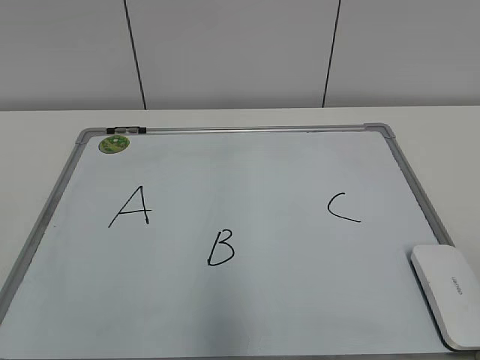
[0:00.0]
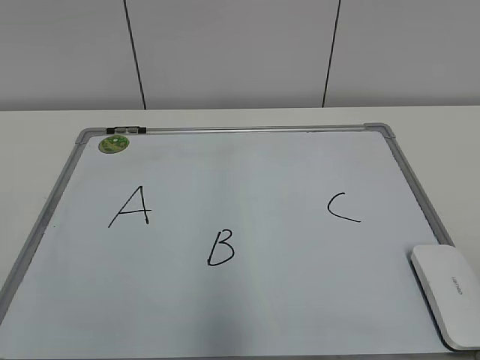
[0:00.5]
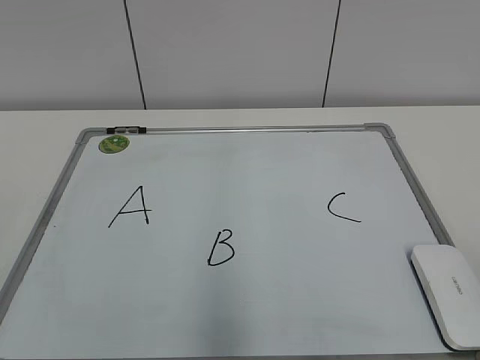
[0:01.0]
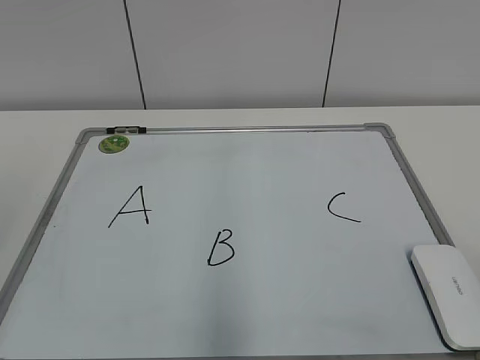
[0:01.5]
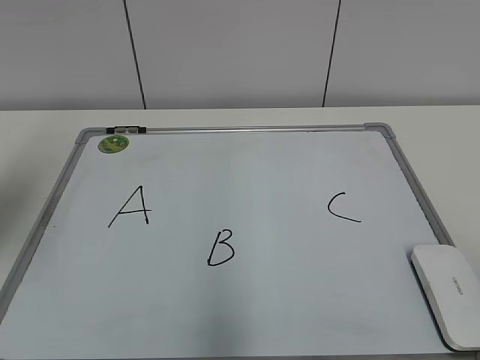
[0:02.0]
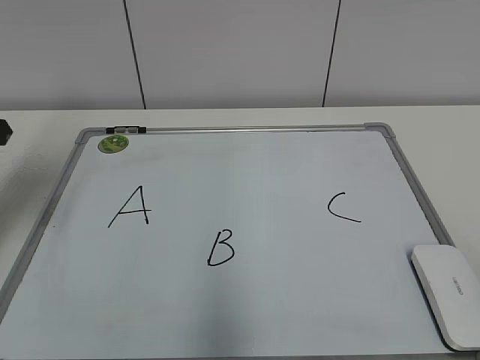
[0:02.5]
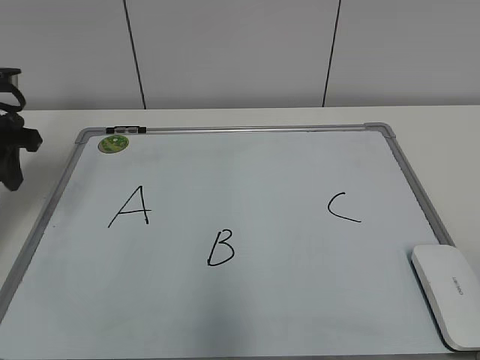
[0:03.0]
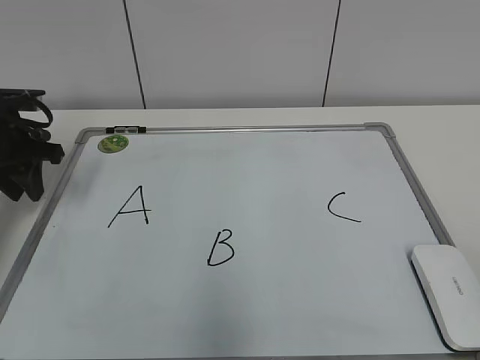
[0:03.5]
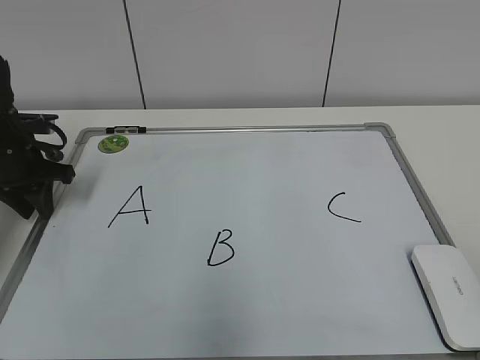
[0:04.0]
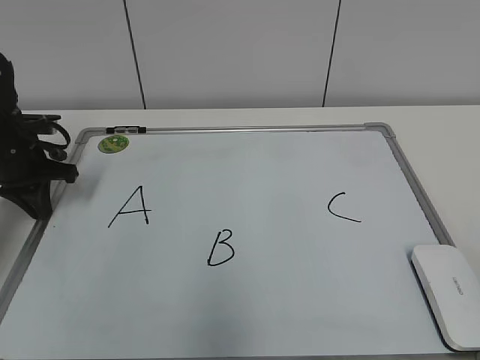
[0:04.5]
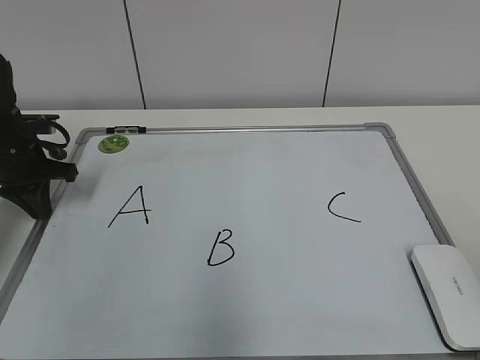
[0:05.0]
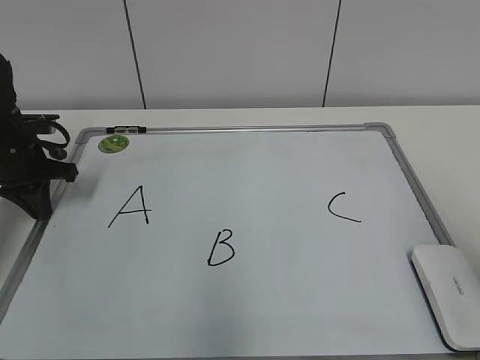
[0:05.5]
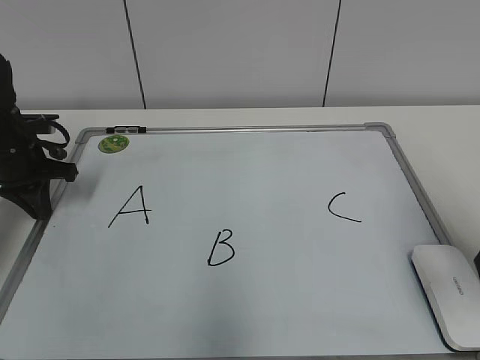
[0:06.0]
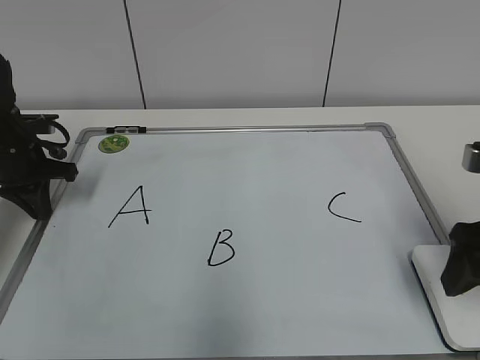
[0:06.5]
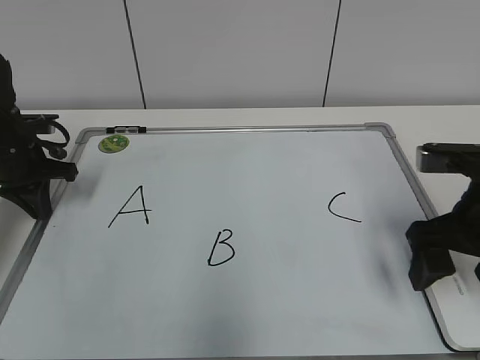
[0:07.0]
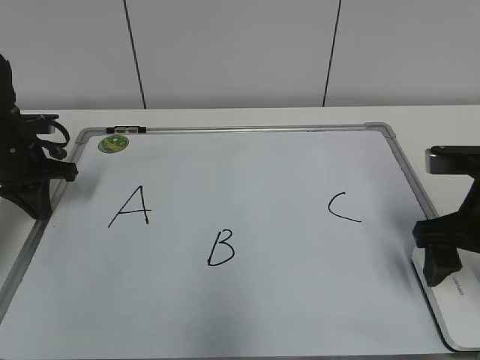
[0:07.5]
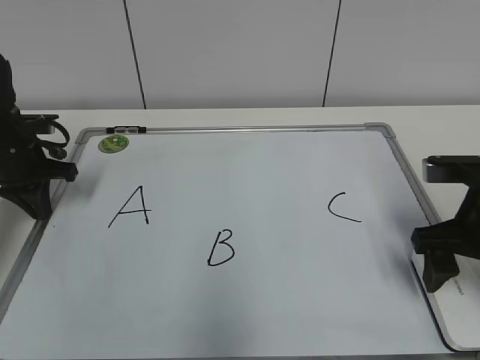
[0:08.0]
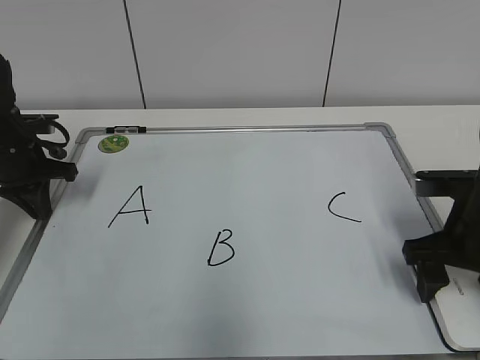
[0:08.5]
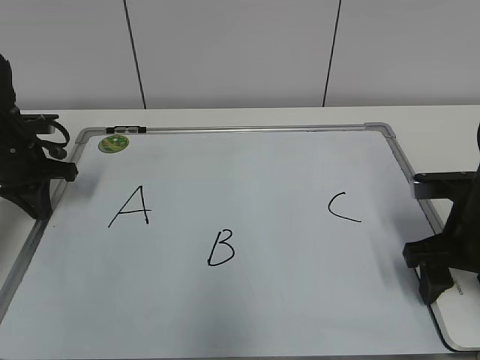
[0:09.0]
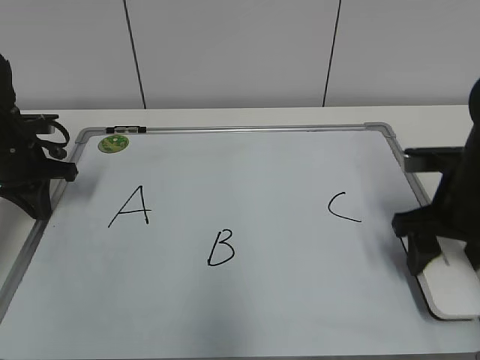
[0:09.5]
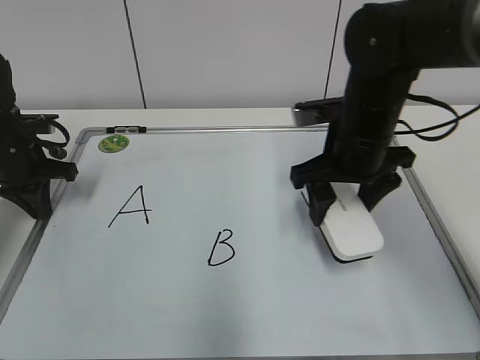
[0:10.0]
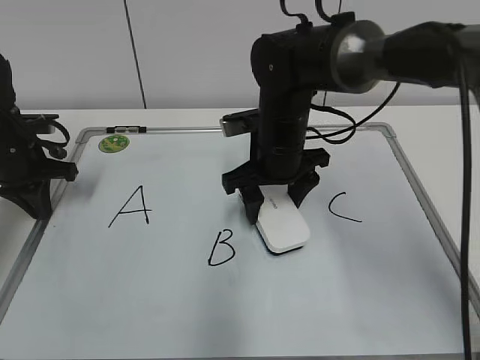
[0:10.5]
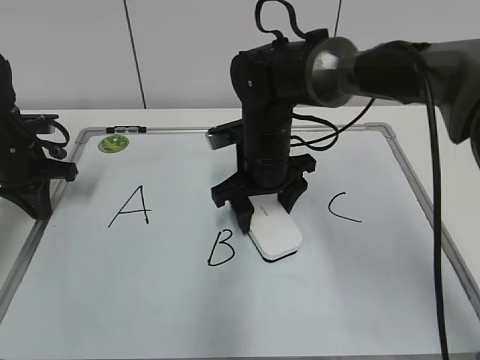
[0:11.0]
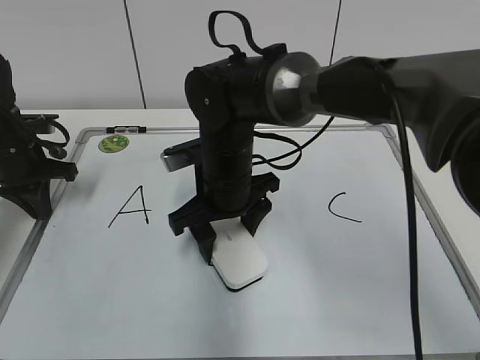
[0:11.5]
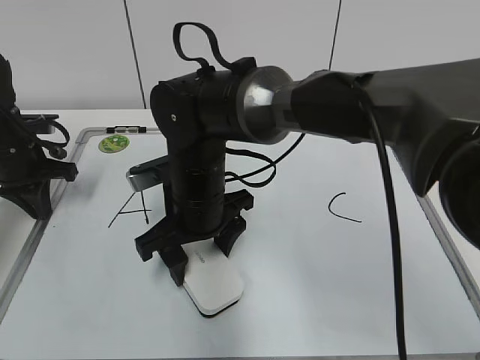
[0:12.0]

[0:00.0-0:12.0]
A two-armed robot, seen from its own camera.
Task of the whole recording: pick up the eraser on the blackboard and erase the letter "B".
Step, 0:00.0 to 0:04.5: Hold the drawing board steady with your left hand.
Step, 0:05.0 to 0:09.0: Grab the eraser with your right hand.
0:02.0 to 0:04.0: The left gripper heads downward and forward, covering about 25 cm.
0:04.0 to 0:06.0: The left gripper closes its fingers; the right gripper goes some 20 cm forward, and opens.
0:06.0 to 0:08.0: The right gripper shifts roughly 10 cm downward and forward, and opens and closes again.
0:08.0 to 0:10.0: The right gripper goes approximately 15 cm to the left and forward, and closes.
0:10.0 to 0:12.0: The right gripper goes some 15 cm to the left.

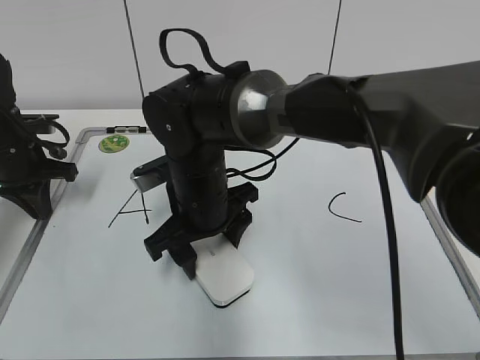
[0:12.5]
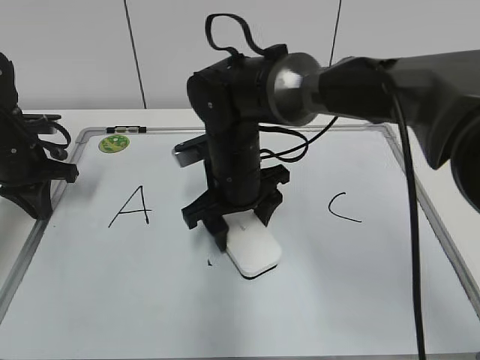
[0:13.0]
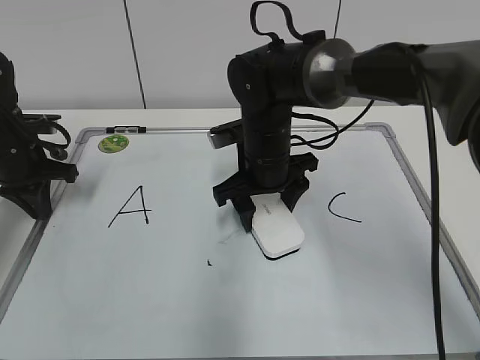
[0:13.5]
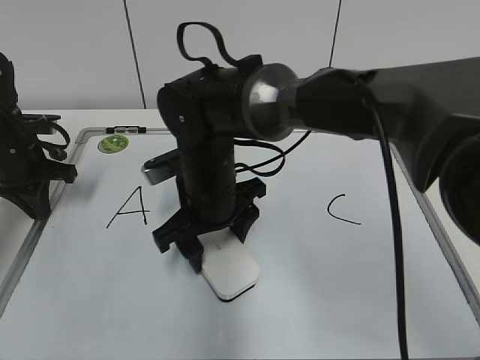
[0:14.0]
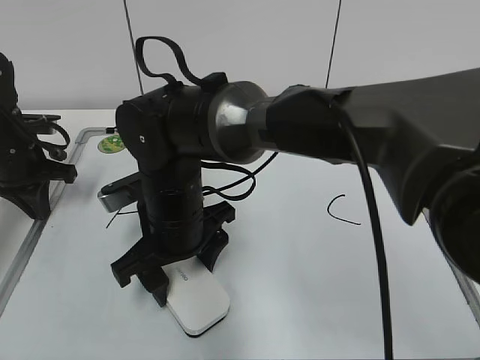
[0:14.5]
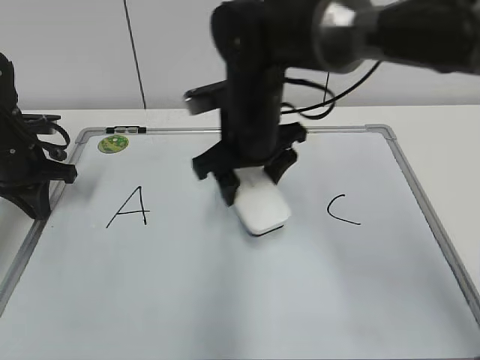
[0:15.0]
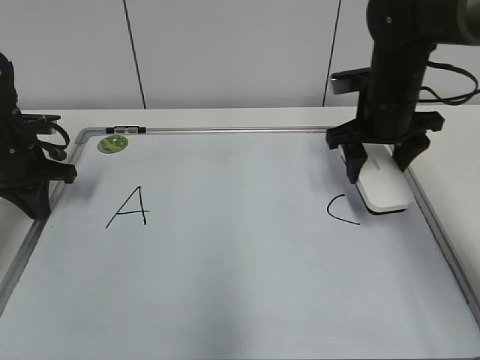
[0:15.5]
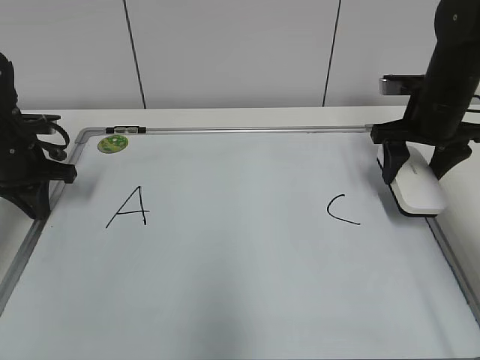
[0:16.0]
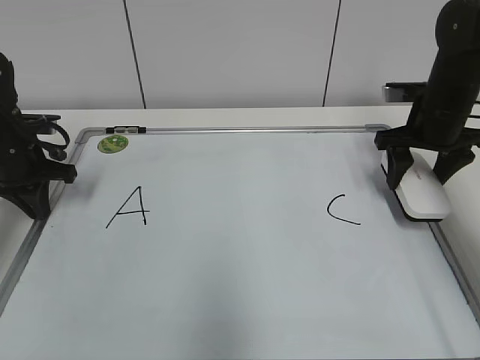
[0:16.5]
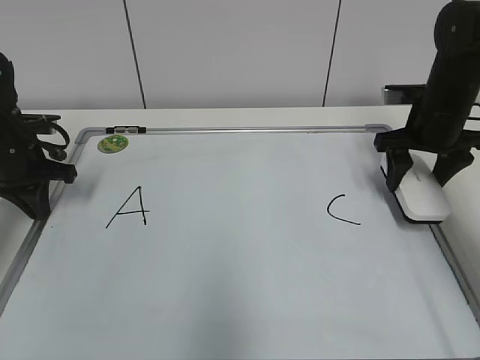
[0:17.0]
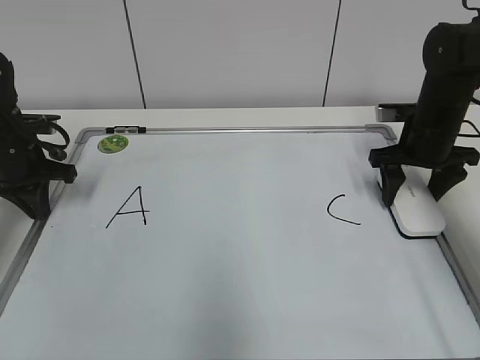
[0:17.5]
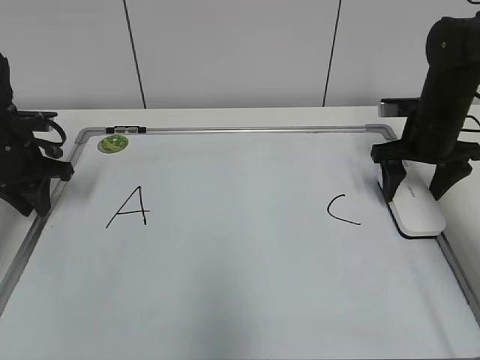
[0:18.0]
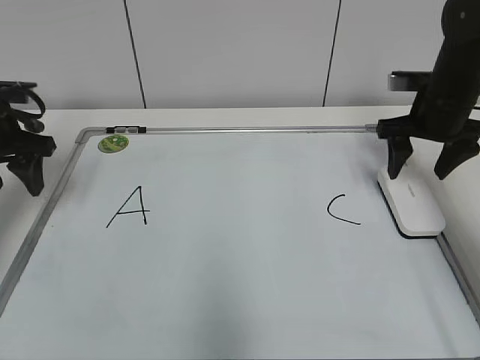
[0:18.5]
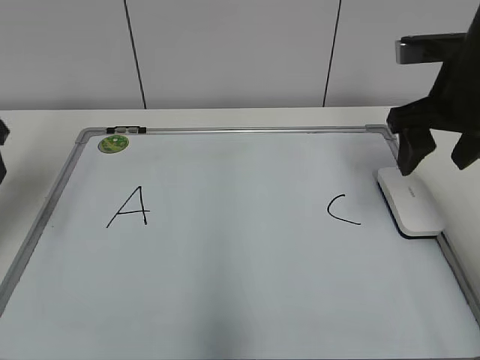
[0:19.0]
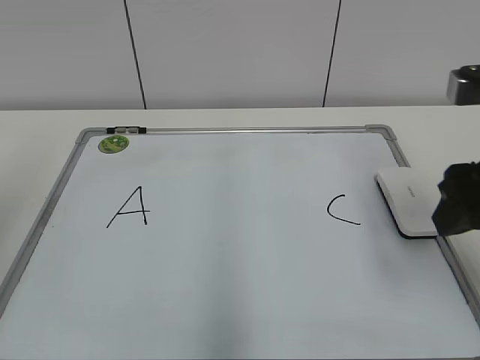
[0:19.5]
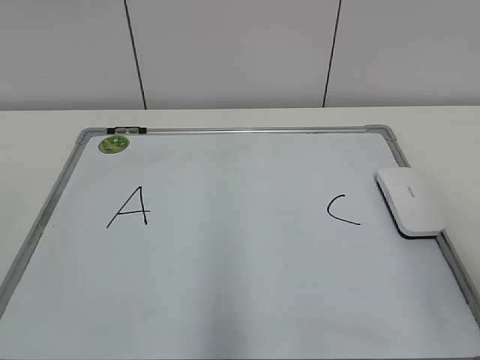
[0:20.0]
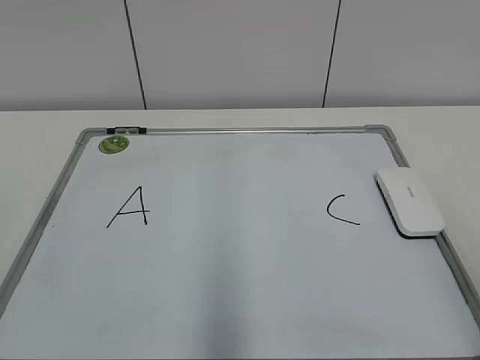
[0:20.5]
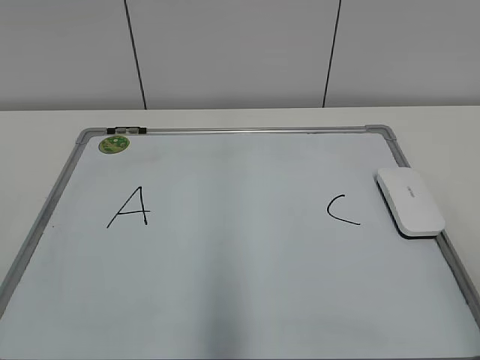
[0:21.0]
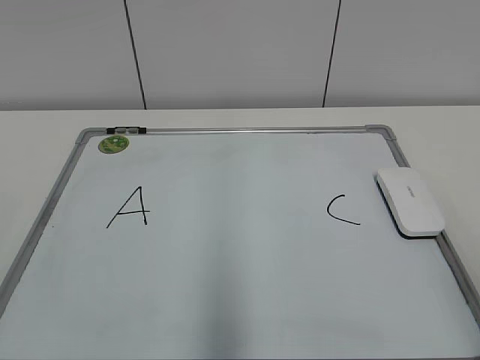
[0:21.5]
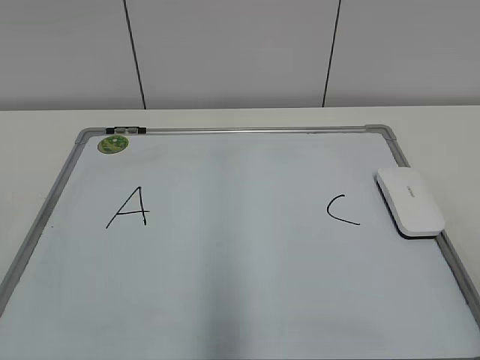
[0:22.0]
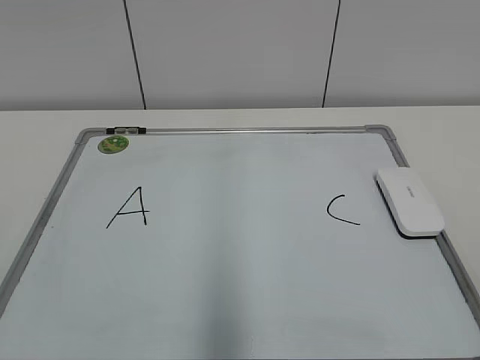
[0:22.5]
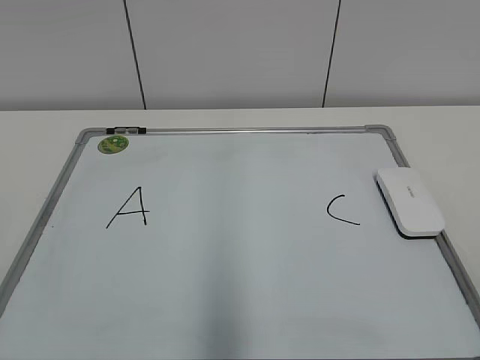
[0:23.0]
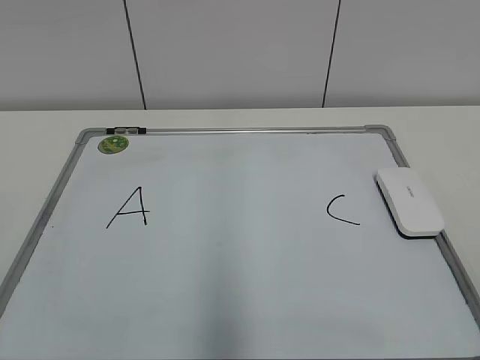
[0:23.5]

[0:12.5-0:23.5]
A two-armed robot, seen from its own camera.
Task of the whole recording: pick up the eraser on the blackboard and erase the letter "B".
0:12.5 to 0:14.5: The right gripper reaches approximately 5 cm to the right, then returns.
0:14.5 to 0:16.0: The right gripper moves to the right, about 30 cm.
0:16.0 to 0:18.0: The left gripper opens. The right gripper opens its fingers.
0:18.0 to 0:20.0: The right gripper travels backward and upward by roughly 35 cm. Meanwhile the left gripper heads backward, covering about 35 cm, and opens.
